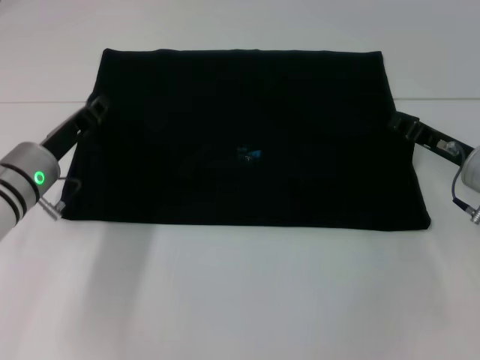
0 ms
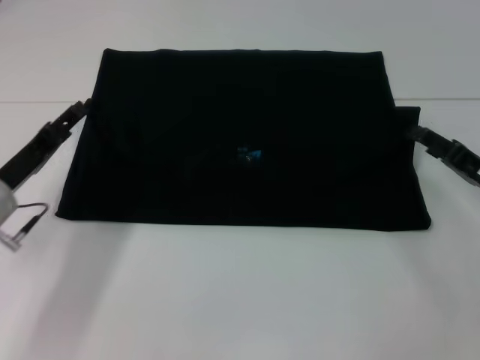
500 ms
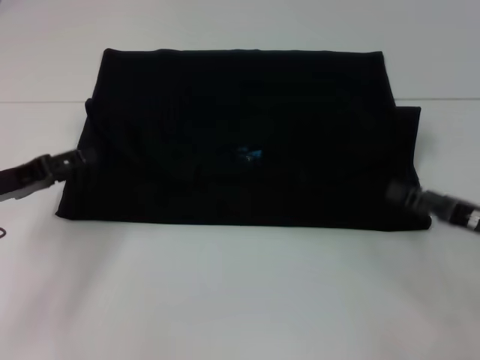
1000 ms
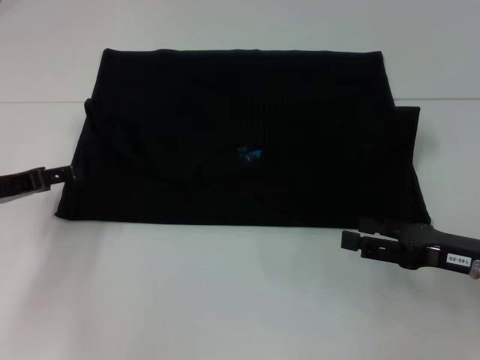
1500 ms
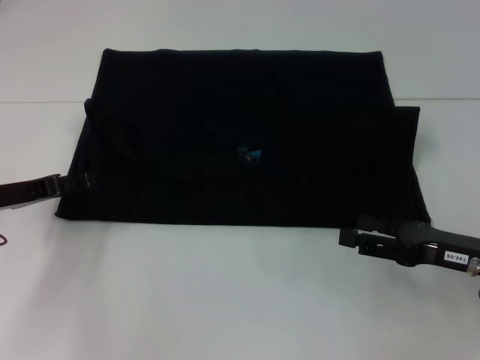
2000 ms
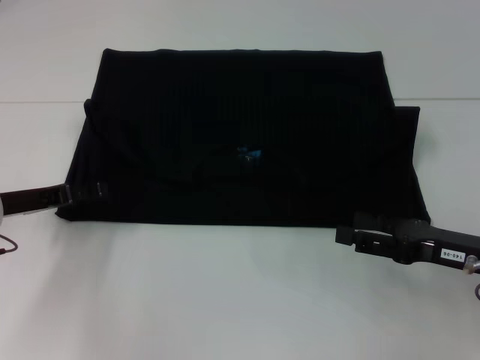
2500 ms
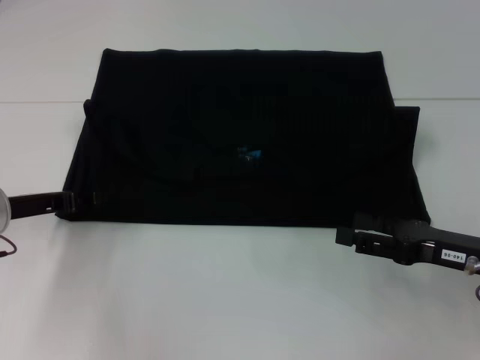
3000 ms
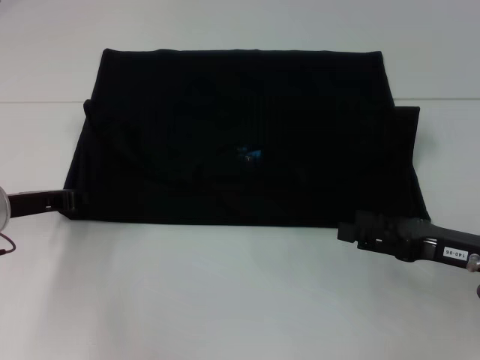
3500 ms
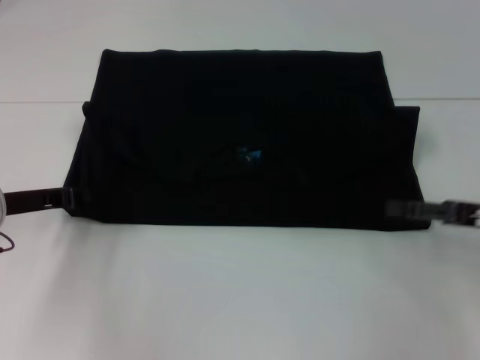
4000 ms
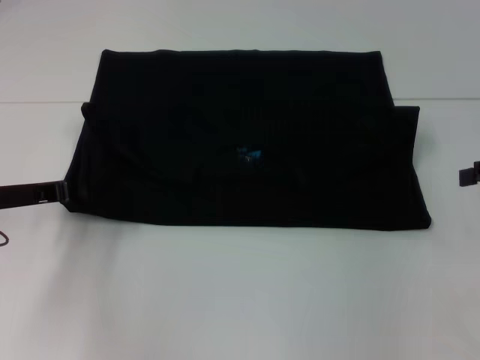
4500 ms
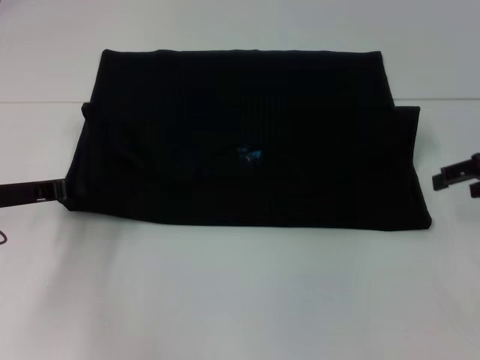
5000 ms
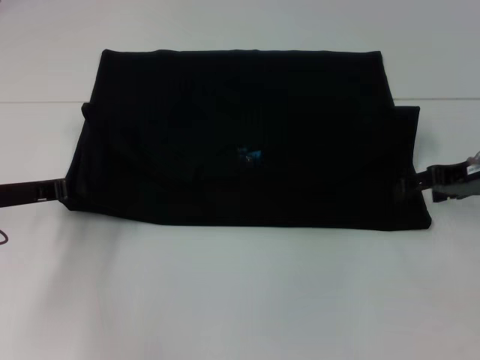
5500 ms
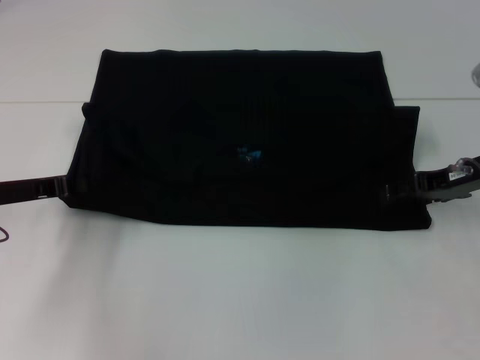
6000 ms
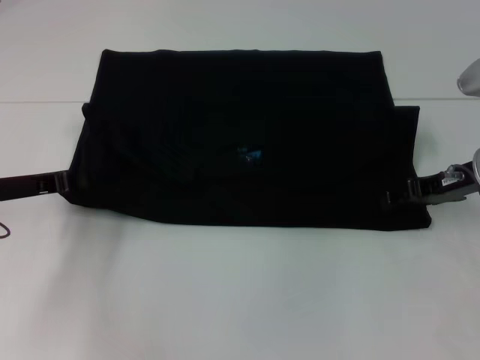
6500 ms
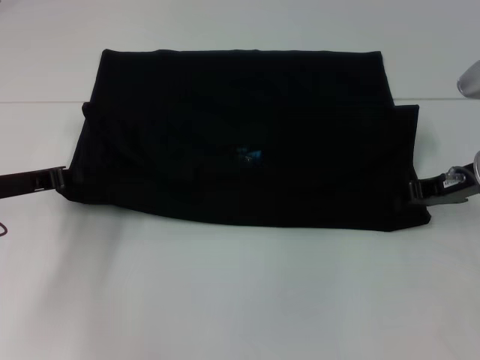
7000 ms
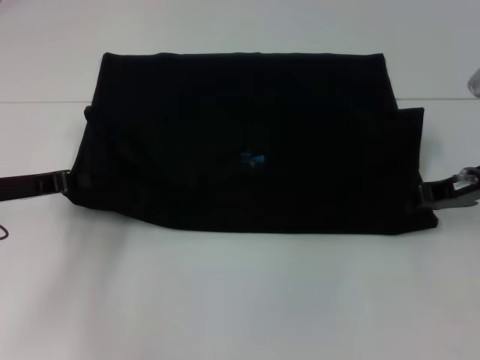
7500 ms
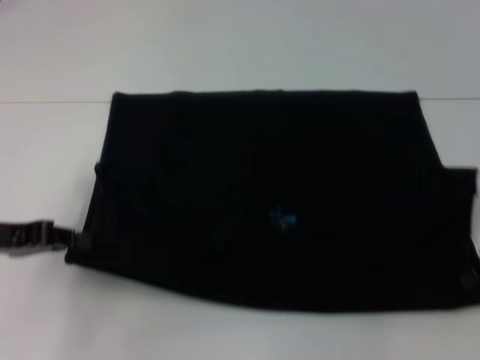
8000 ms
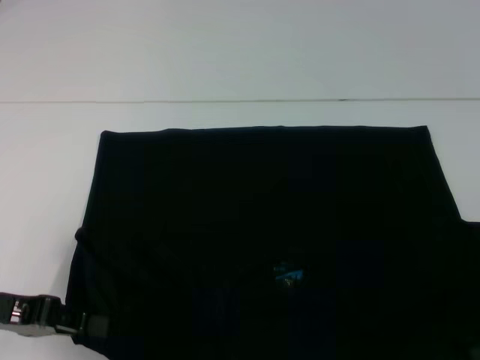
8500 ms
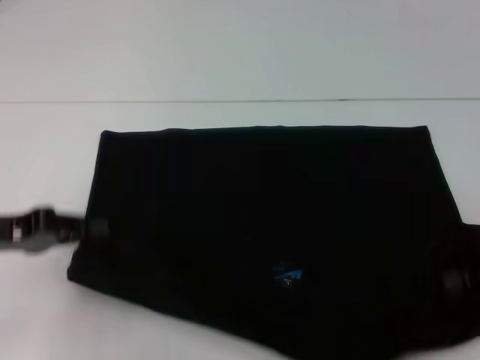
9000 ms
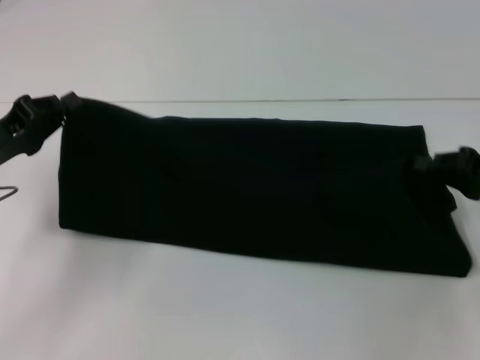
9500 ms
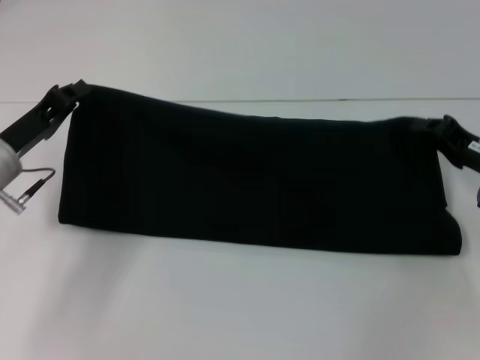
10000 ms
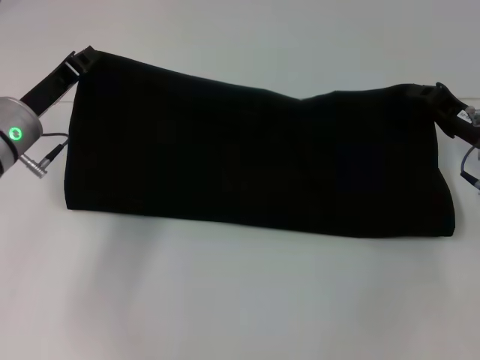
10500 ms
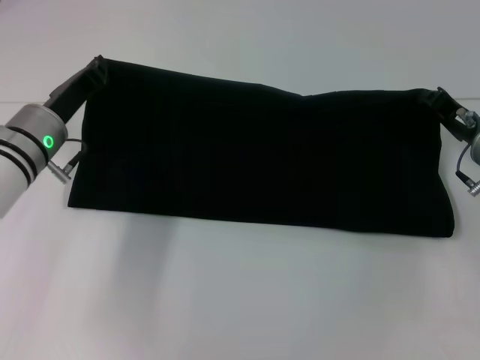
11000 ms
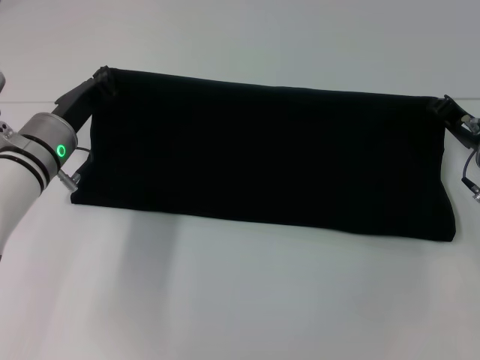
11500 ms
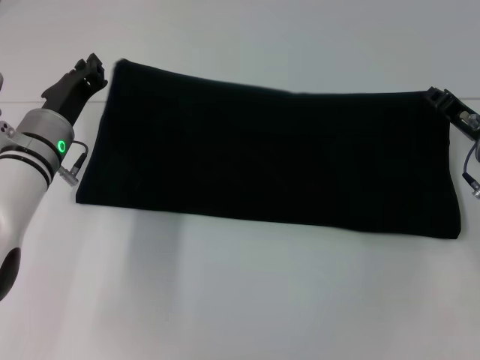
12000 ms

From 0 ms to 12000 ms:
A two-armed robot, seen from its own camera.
Step, from 500 ms to 8500 ms: Pull the clothes with your left hand.
Step, from 500 ms to 8500 ms: Pull the clothes with your right hand.
From 0 ms to 2000 ms: The right gripper moves backward, some 10 cm, and opens up, while the left gripper moves to the left, roughly 5 cm, and opens.
From 2000 ms to 4000 ms: The right gripper shifts by roughly 5 cm, while the left gripper closes its fingers.
From 4000 ms to 6000 ms: The right gripper heads forward, covering approximately 10 cm.
From 6000 ms to 8000 ms: The right gripper heads to the right and backward, covering roughly 10 cm, and closes up. Meanwhile the left gripper shifts about 5 cm backward.
From 8000 ms to 10000 ms: The left gripper shifts approximately 5 cm forward, while the right gripper moves downward, roughly 5 cm.
From 10000 ms to 12000 ms: The left gripper travels to the right by some 5 cm.

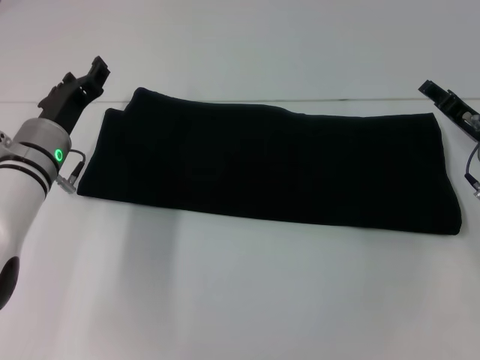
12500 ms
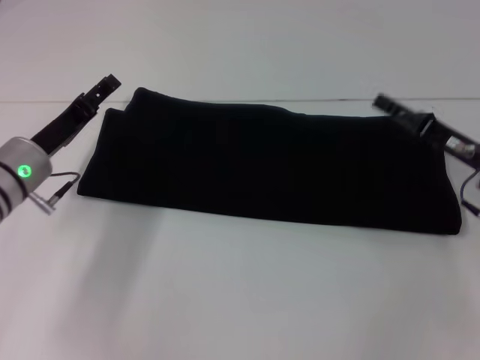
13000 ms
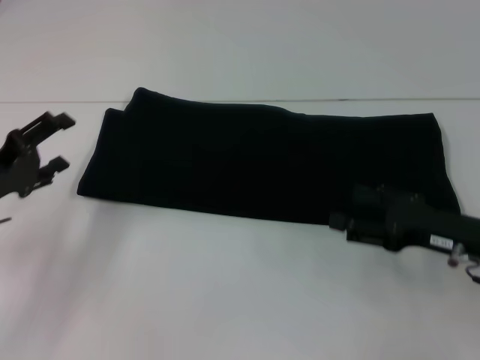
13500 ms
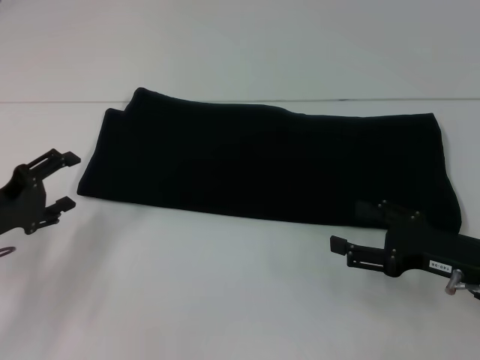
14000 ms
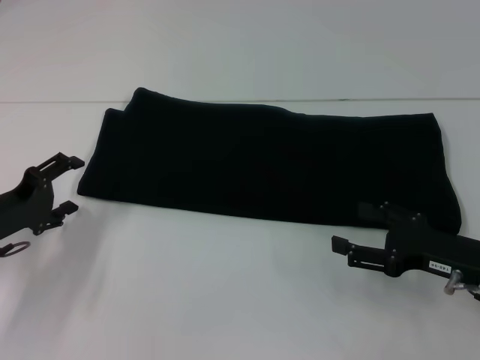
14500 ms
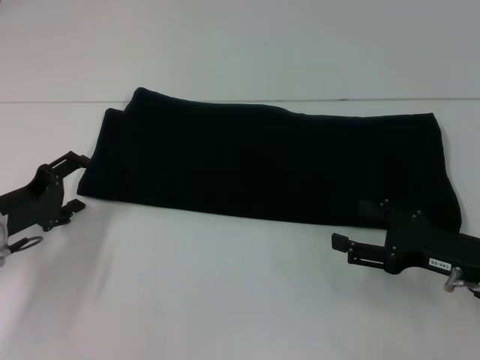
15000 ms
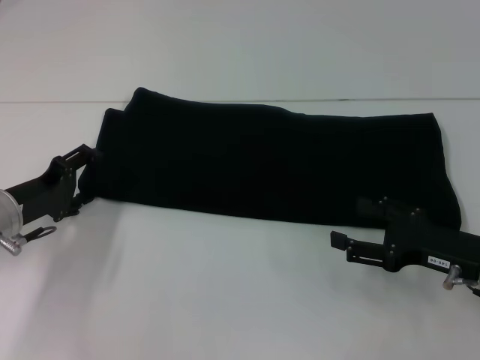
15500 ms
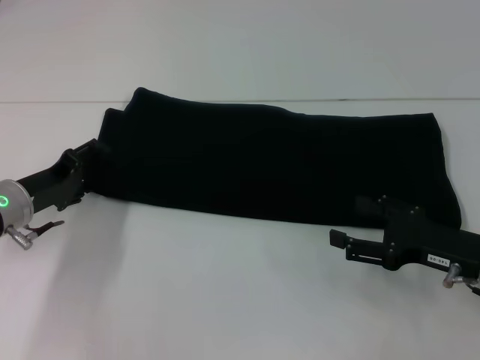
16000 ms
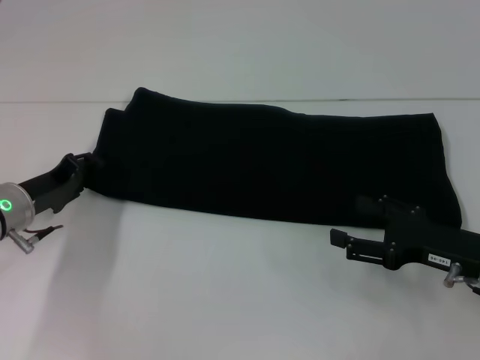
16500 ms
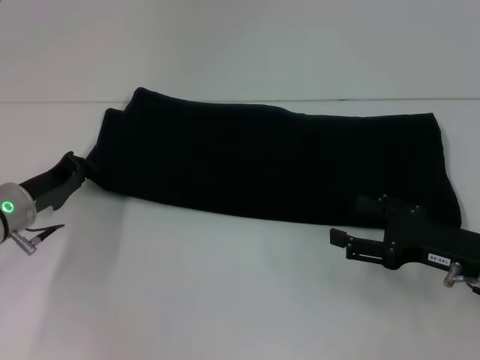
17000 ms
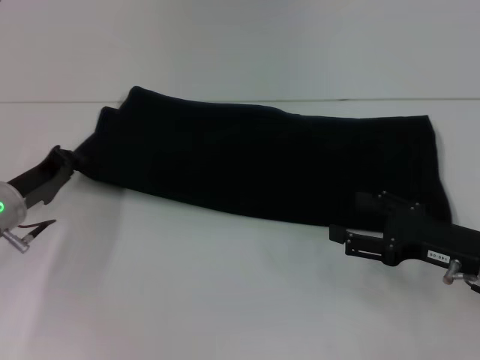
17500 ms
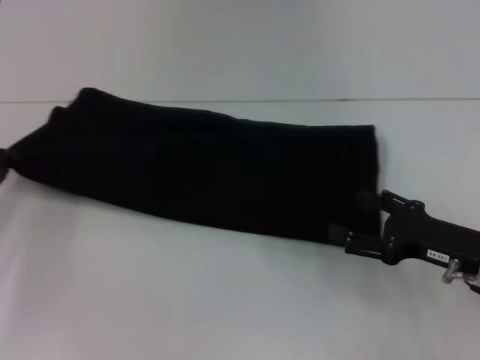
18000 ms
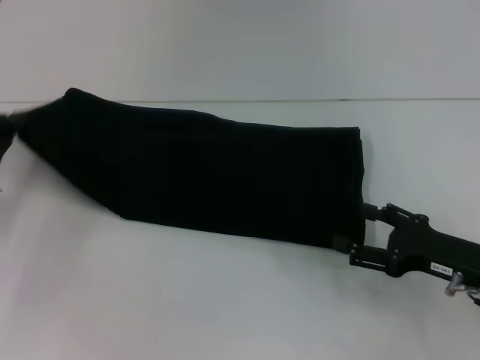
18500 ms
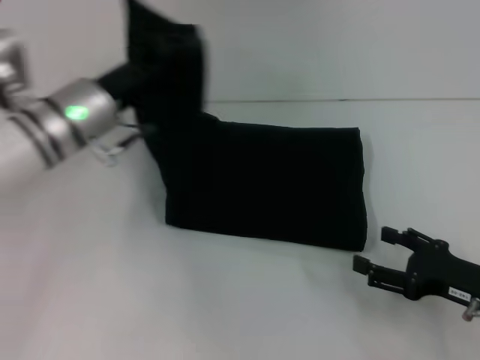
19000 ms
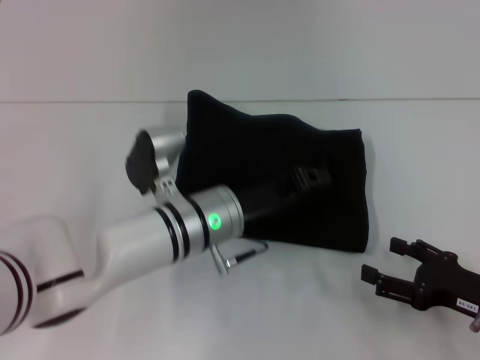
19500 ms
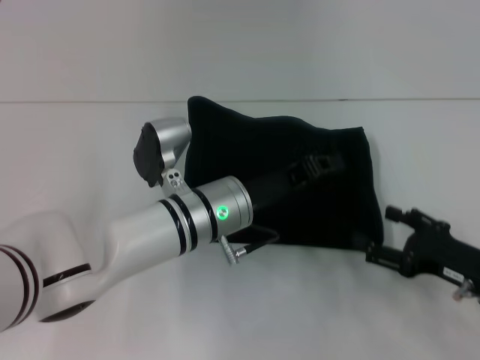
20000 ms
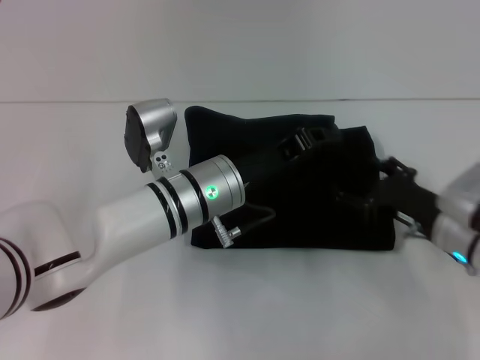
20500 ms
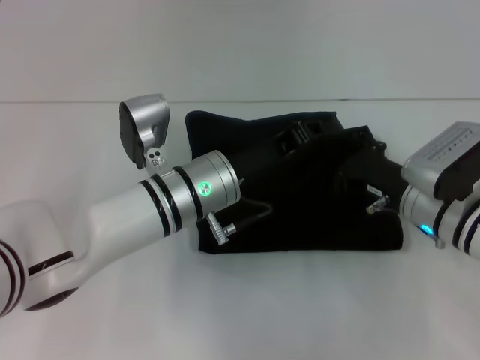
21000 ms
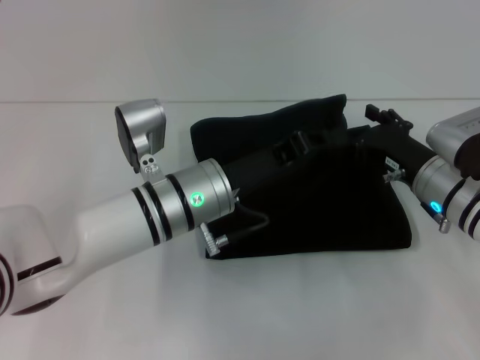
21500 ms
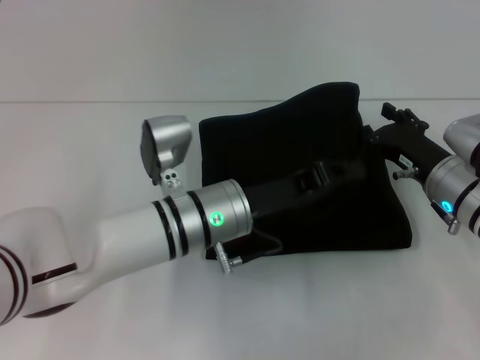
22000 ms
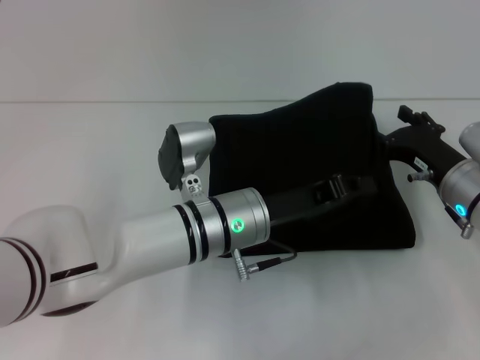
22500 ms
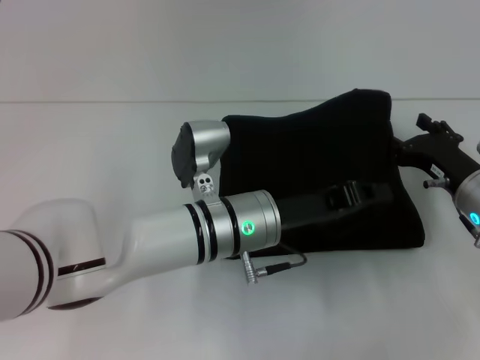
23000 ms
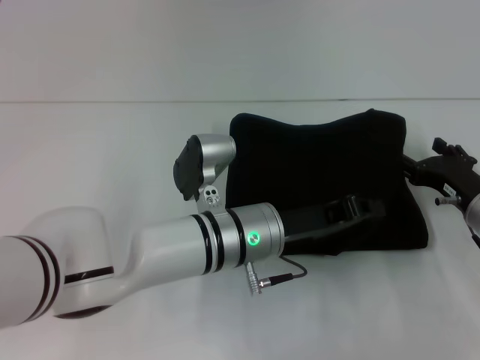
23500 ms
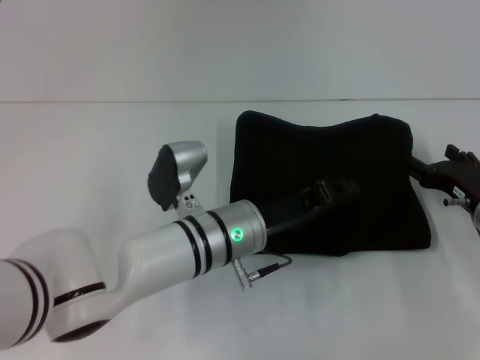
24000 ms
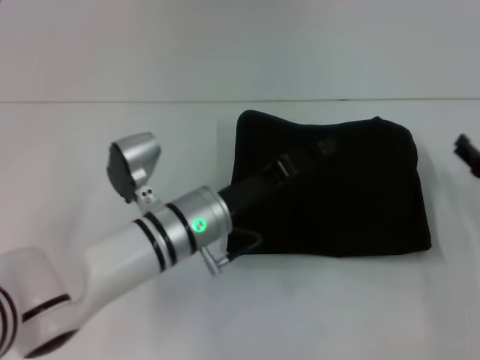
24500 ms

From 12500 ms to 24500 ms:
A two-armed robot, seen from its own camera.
Step, from 12500 ms to 24000 ms: Fold the clothes with your left hand.
From 12500 ms to 14500 ms: The left gripper moves to the left and backward, about 10 cm, and opens, while the right gripper heads backward, covering roughly 10 cm, and opens its fingers.
From 14500 ms to 16500 ms: The left gripper ends up roughly 5 cm from where it was, and closes up.
From 16500 ms to 18500 ms: The left gripper moves to the left, about 5 cm, and closes up.
From 18500 ms to 20500 ms: The left gripper shifts approximately 25 cm to the right. Meanwhile the right gripper travels forward by roughly 5 cm.
From 22500 ms to 24500 ms: The right gripper goes some 5 cm to the right. The left gripper opens up.

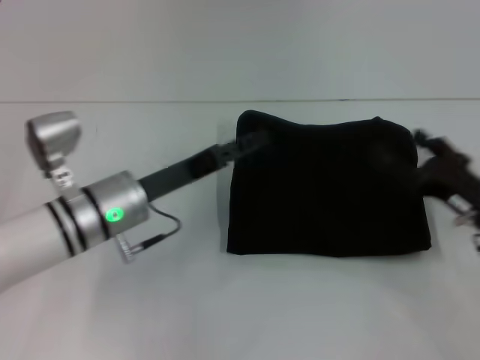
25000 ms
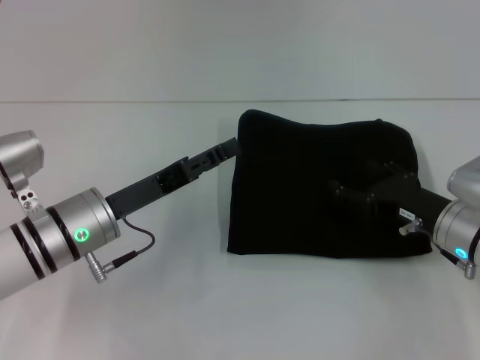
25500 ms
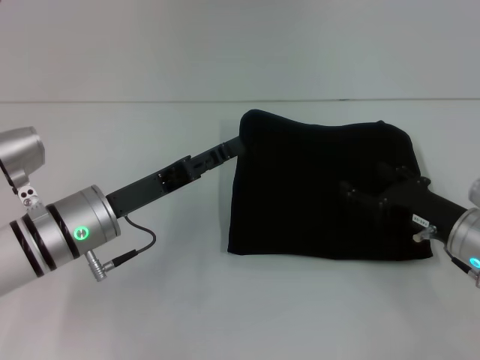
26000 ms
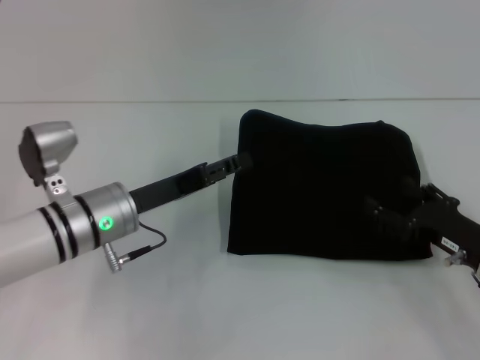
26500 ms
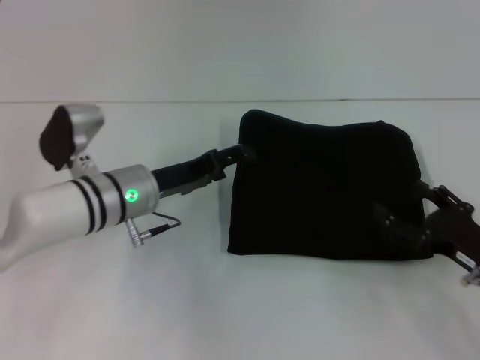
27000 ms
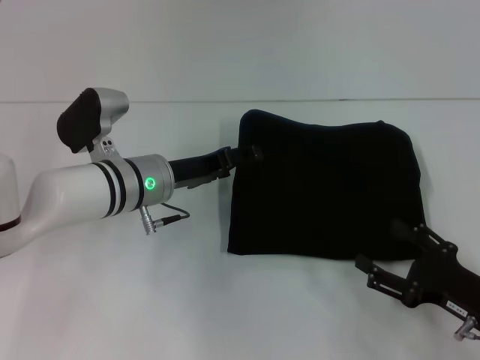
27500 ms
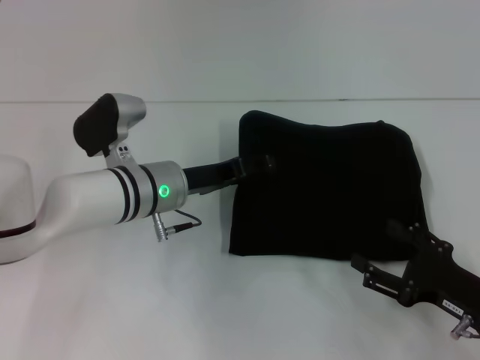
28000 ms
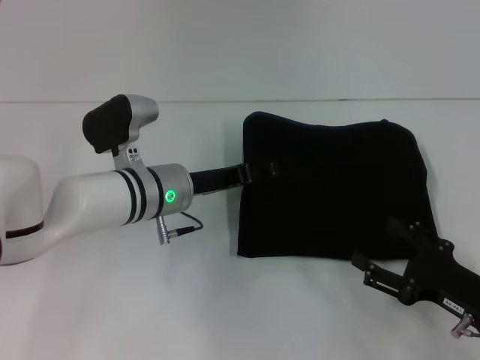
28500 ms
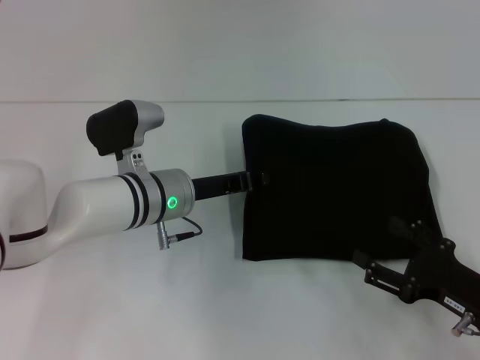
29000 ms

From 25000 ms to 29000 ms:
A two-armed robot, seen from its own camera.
From 25000 ms to 27000 ms: There are only small adjustments of the grippers.
From 27000 ms to 29000 ms: The grippers move only a little.
